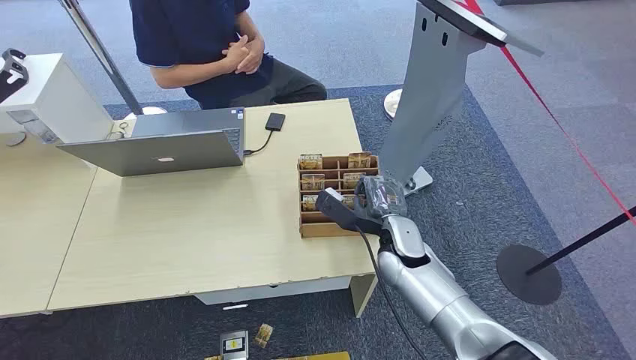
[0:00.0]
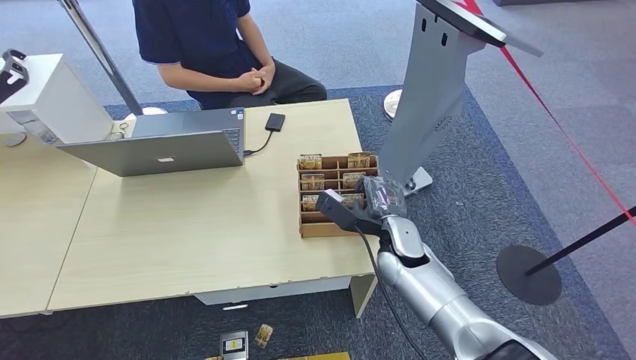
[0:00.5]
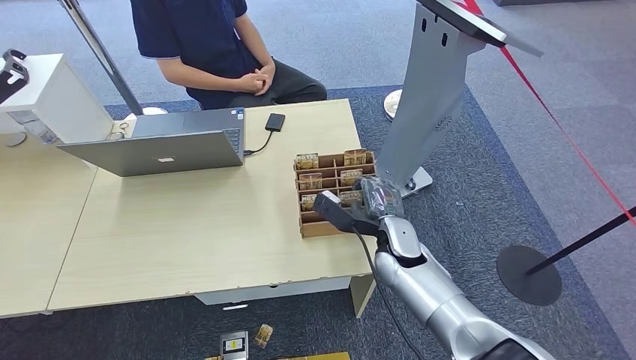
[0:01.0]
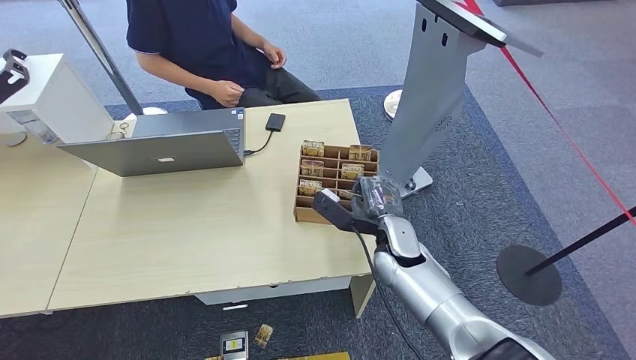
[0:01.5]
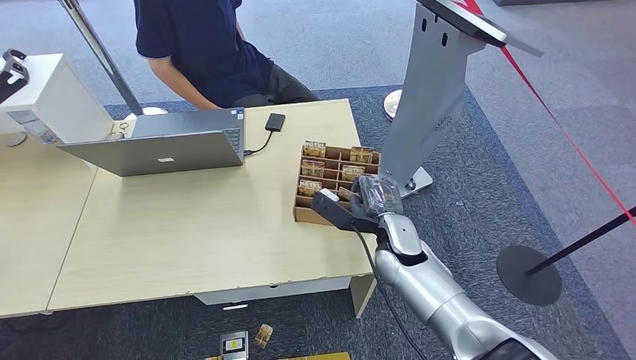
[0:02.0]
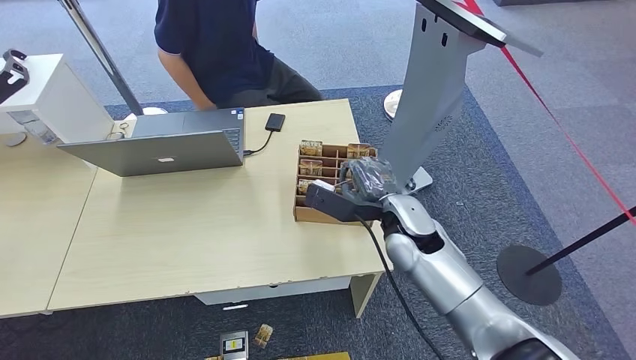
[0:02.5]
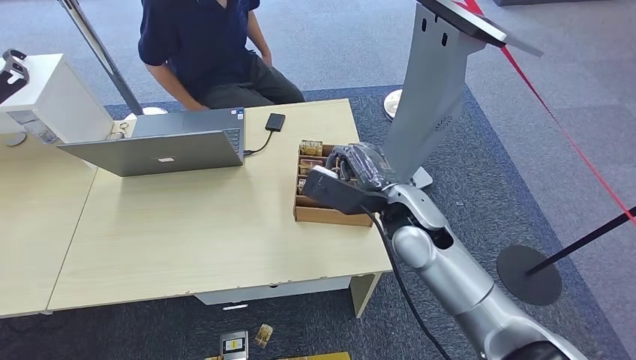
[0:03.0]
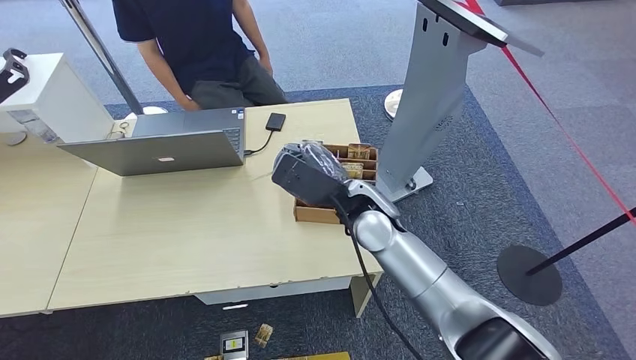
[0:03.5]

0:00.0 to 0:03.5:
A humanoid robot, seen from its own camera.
Step, 0:00.0 to 0:03.0: Pick up the key card from the card box.
0:02.0 to 0:03.5: The right hand moves upward and to the left, approximately 10 cm.

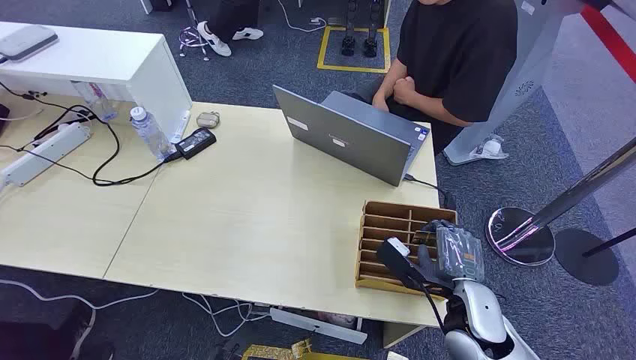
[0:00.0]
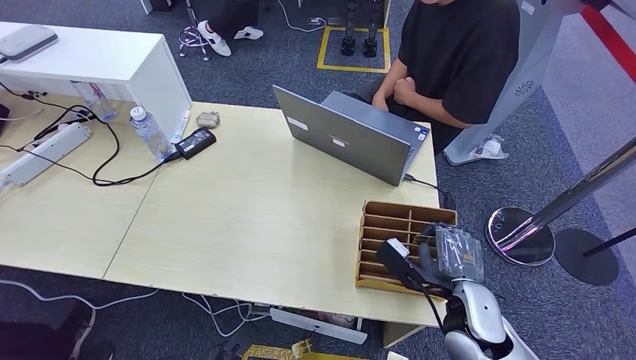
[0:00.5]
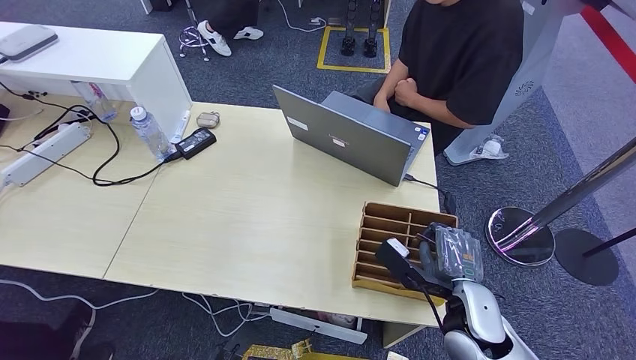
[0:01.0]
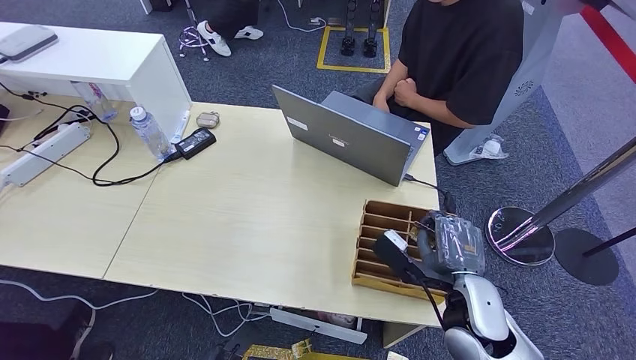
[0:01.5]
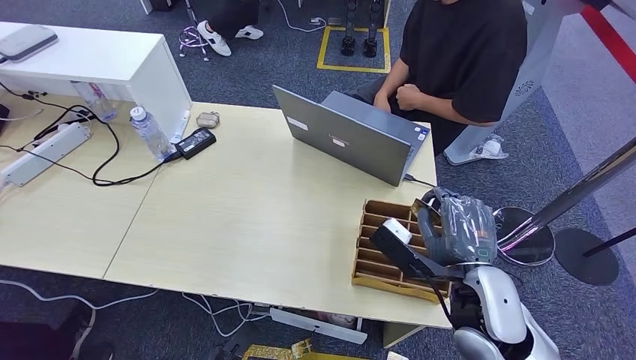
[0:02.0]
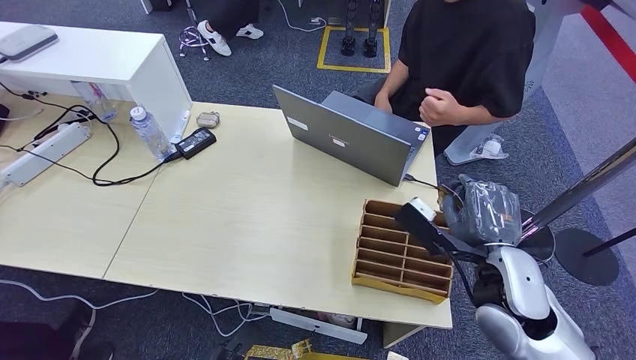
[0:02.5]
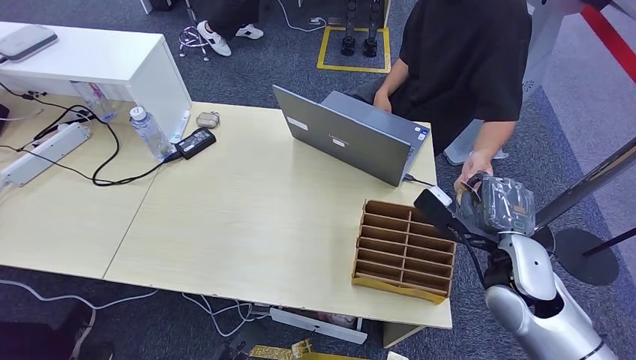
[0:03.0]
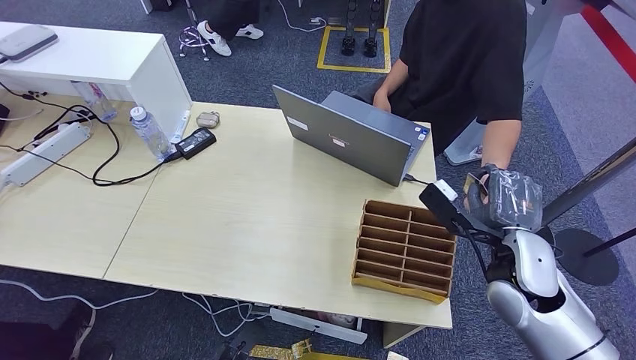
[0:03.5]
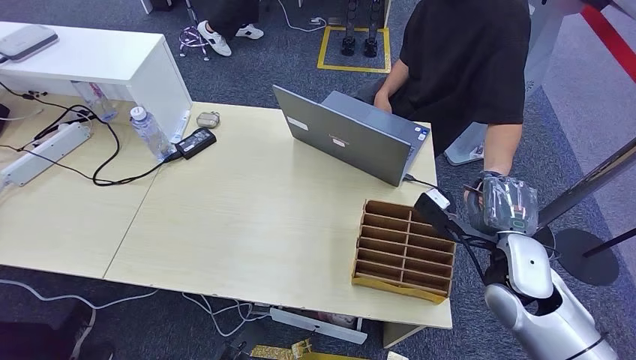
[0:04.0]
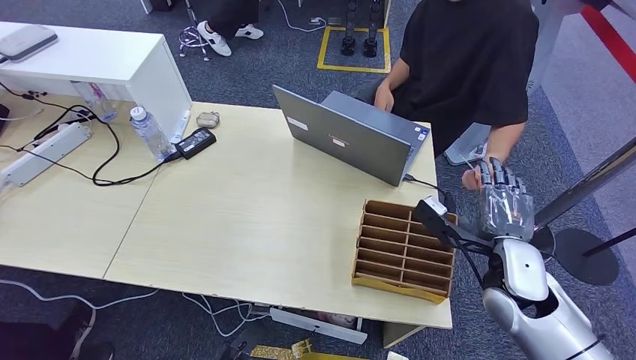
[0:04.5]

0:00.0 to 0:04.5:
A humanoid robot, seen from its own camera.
Step, 0:00.0 to 0:02.5: Pick up the key card from the card box.
Step, 0:03.0 to 0:04.5: Hand the key card to the target.
0:02.0 to 0:04.5: The right hand is displaced forward and to the right by about 10 cm.
